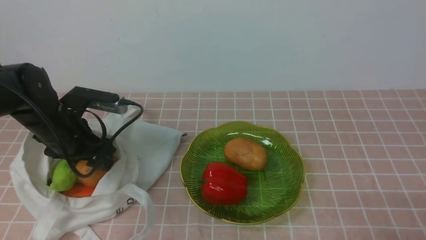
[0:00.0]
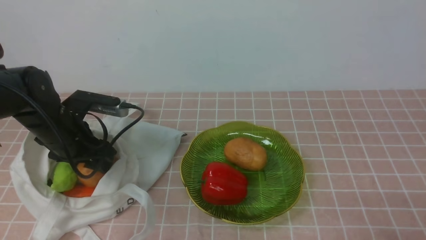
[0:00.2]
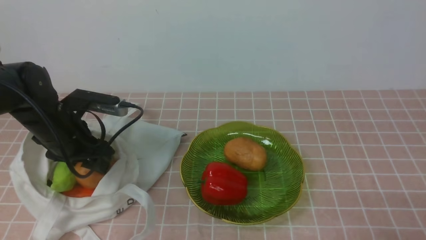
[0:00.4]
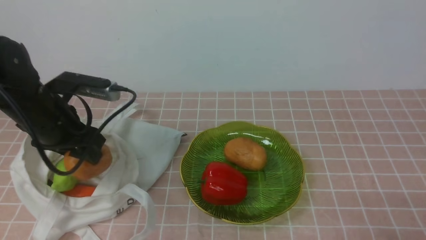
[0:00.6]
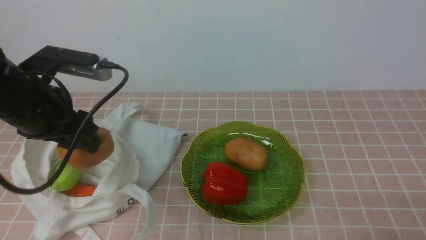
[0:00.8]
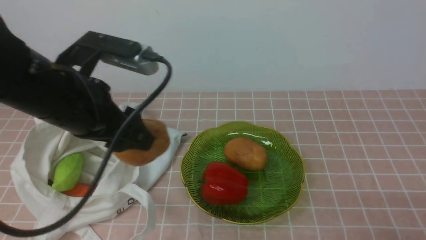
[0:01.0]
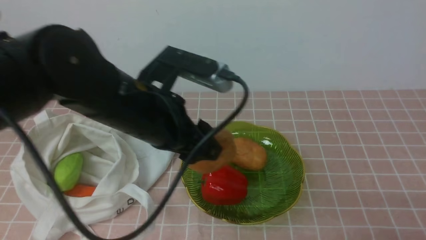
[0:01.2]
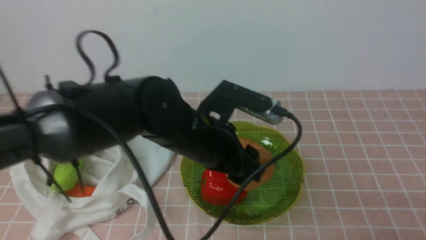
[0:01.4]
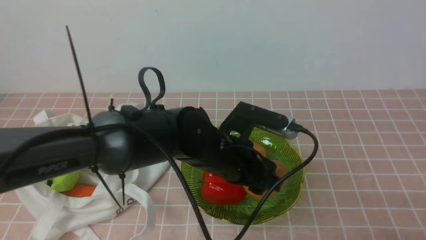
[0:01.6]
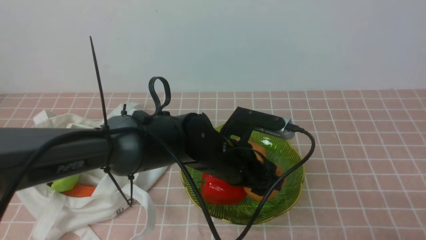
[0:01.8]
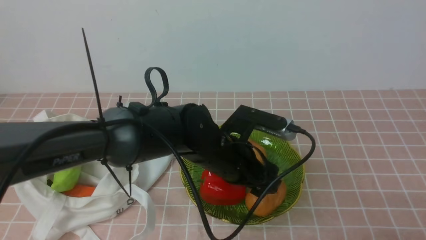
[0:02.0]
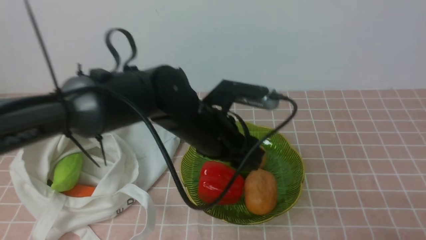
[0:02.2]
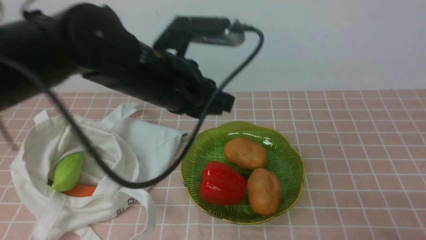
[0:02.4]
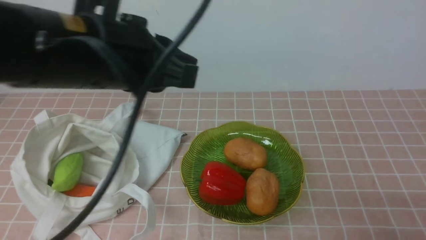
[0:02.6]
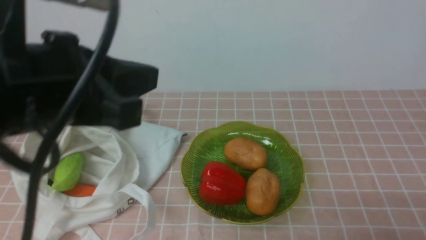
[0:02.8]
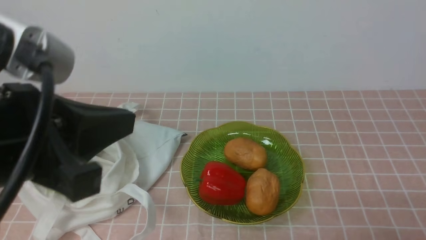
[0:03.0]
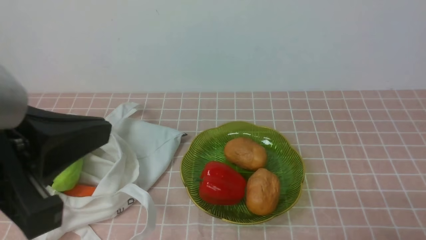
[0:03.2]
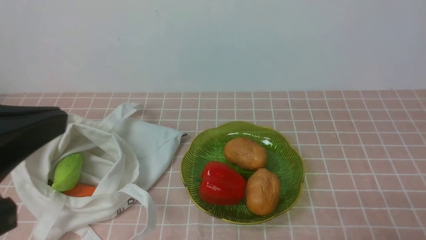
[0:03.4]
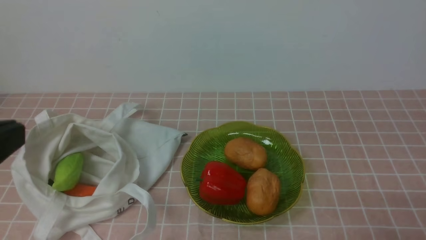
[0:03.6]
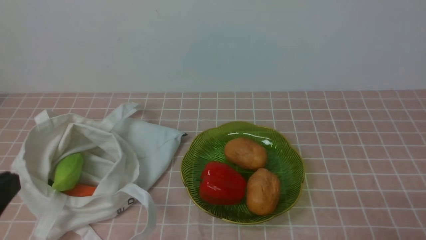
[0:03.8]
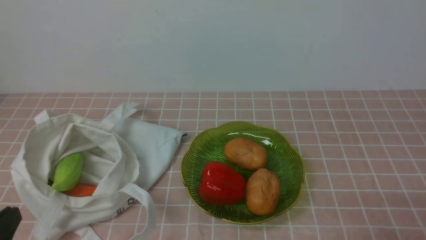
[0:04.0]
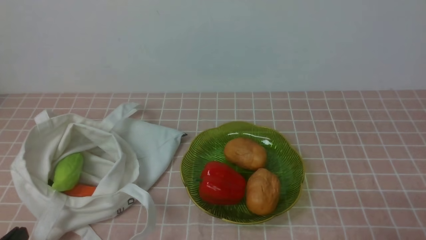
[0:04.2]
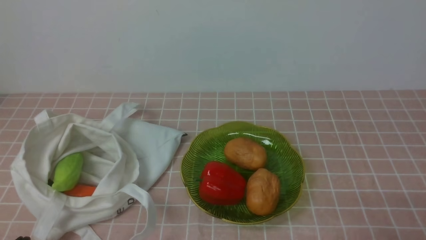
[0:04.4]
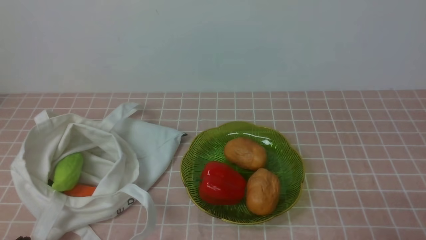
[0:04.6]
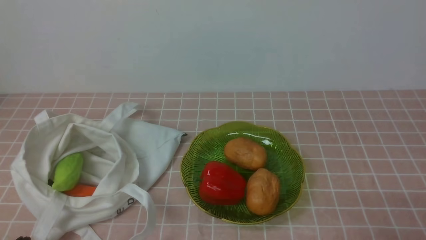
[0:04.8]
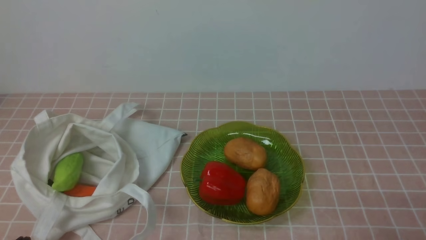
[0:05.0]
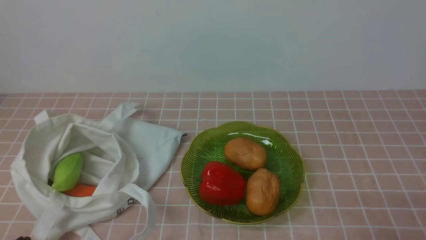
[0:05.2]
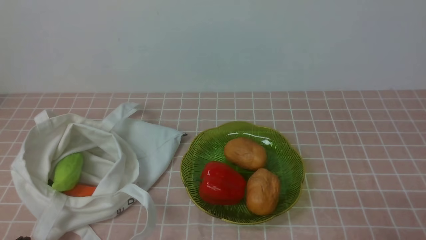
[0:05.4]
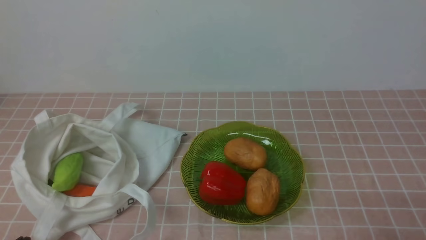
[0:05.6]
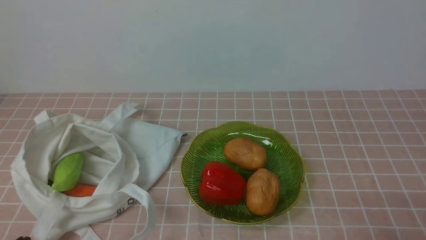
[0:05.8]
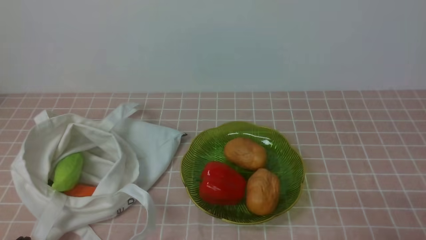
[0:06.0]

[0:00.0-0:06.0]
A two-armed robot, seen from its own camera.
Task of the whole recording: take vegetables from bag on pink coffee tablecloth place on plate.
Step, 0:00.2 to 0:02.4: Place the potato on the plate with left gripper.
0:00.0 to 0:01.6: The left gripper is displaced to the right by approximately 25 cm.
0:01.6 to 0:03.0: The left gripper heads upward, to the left and backward, covering approximately 30 cm, and closes.
0:03.0 to 0:04.4: The left gripper shifts about 20 cm downward.
0:04.4 to 0:06.0: Both grippers stay put.

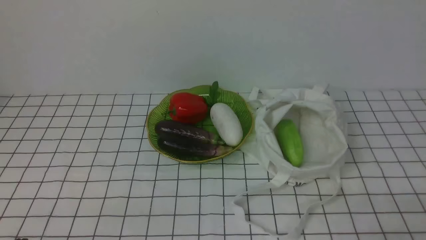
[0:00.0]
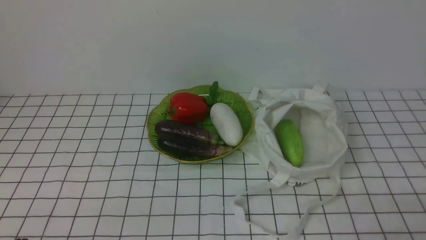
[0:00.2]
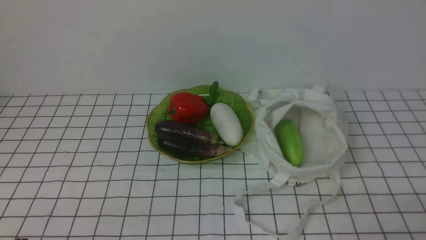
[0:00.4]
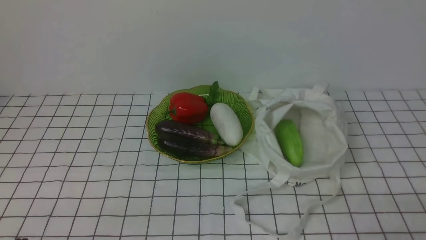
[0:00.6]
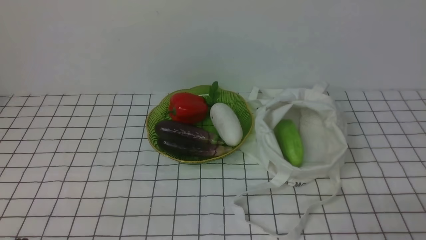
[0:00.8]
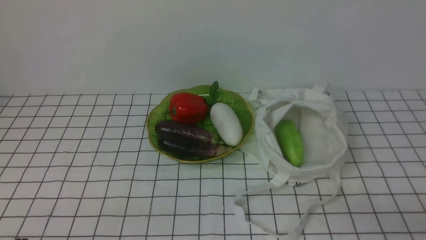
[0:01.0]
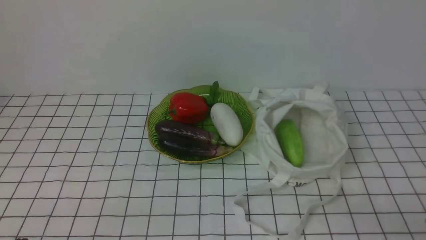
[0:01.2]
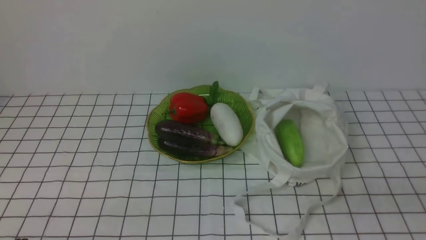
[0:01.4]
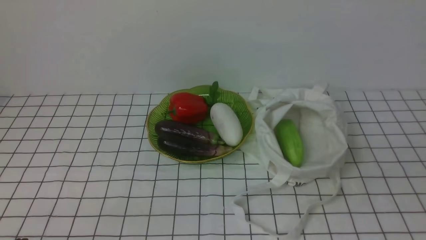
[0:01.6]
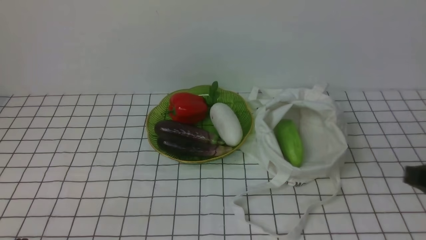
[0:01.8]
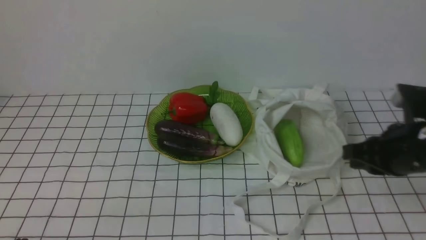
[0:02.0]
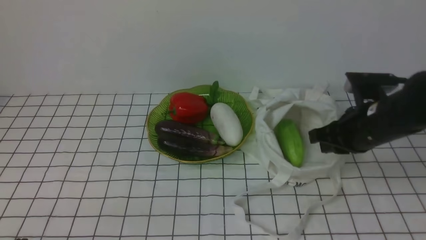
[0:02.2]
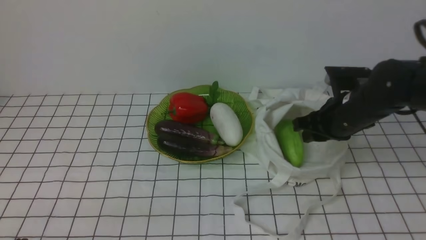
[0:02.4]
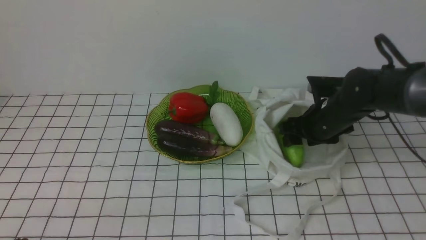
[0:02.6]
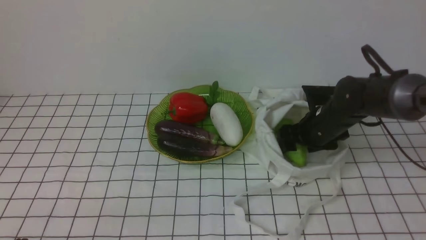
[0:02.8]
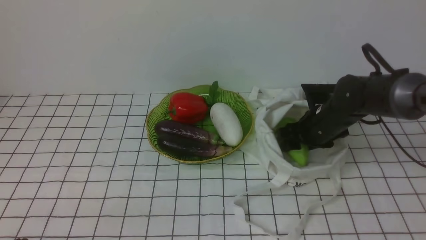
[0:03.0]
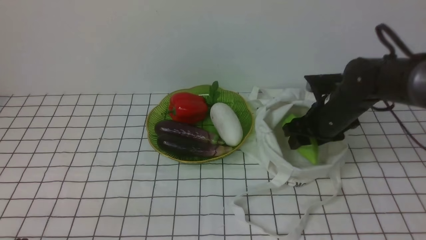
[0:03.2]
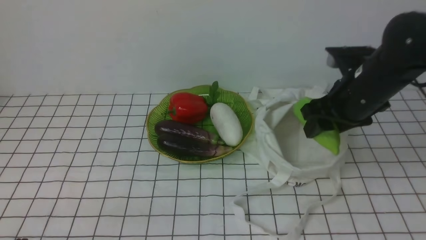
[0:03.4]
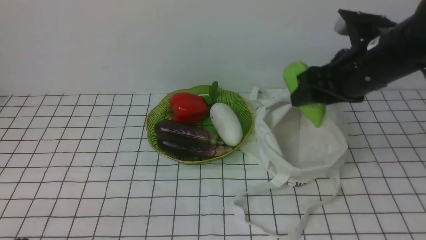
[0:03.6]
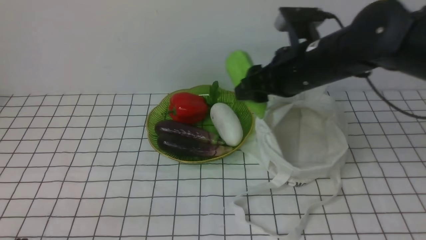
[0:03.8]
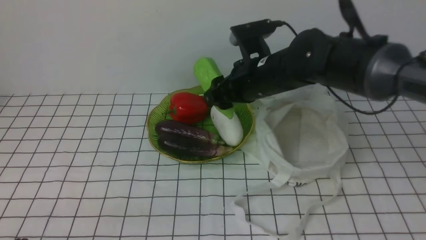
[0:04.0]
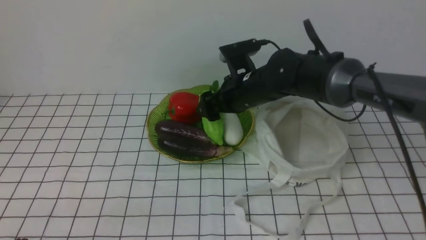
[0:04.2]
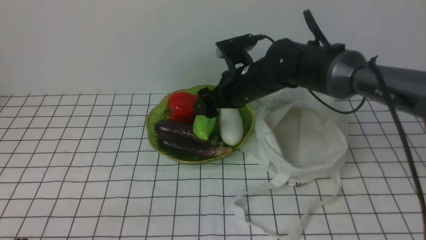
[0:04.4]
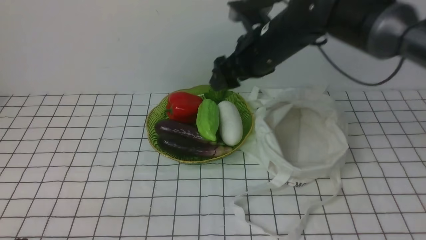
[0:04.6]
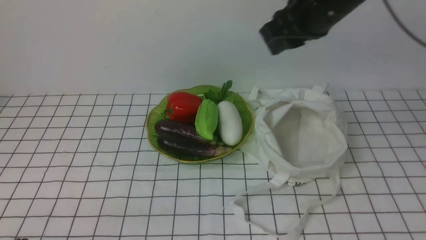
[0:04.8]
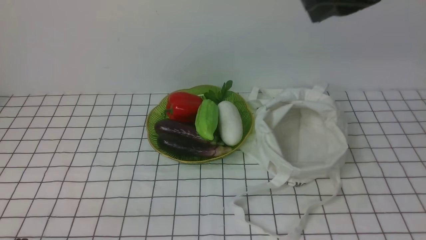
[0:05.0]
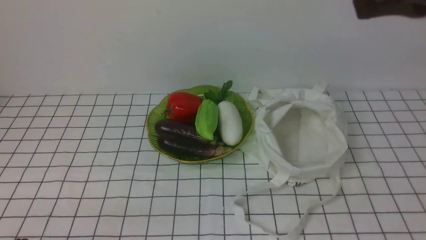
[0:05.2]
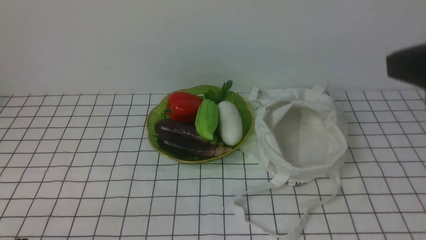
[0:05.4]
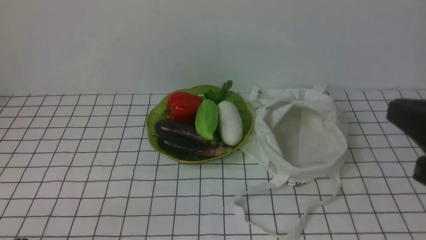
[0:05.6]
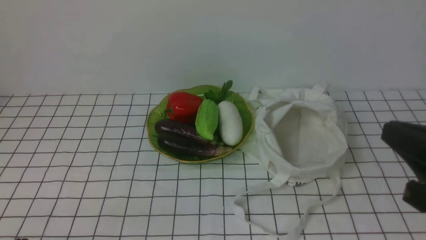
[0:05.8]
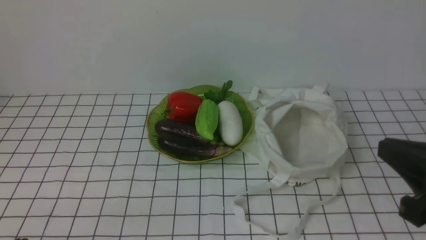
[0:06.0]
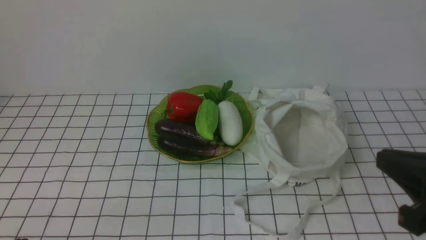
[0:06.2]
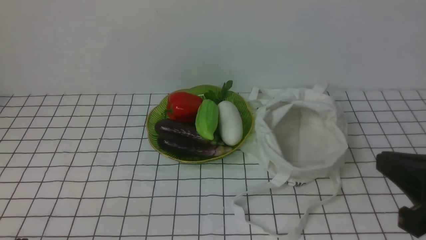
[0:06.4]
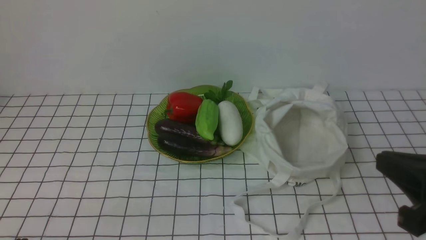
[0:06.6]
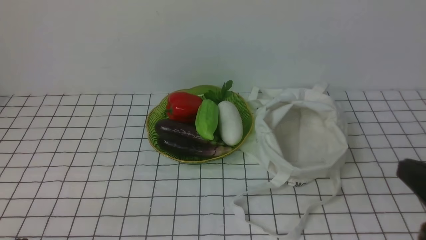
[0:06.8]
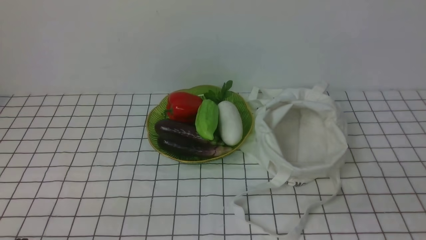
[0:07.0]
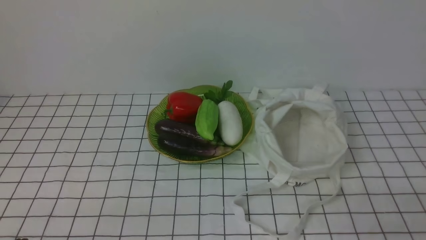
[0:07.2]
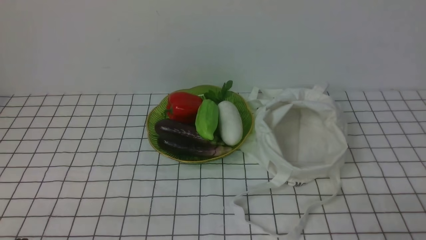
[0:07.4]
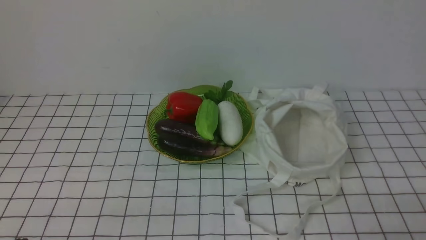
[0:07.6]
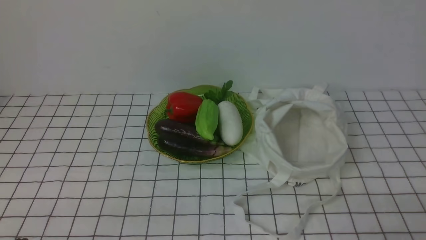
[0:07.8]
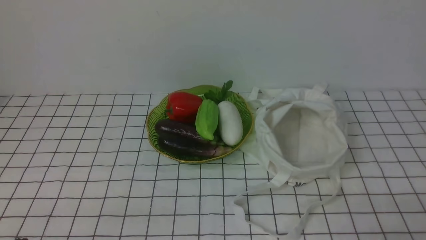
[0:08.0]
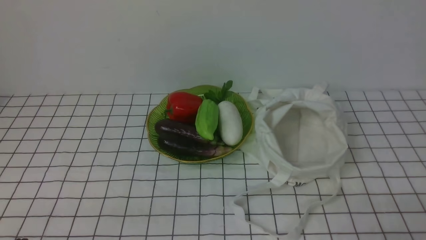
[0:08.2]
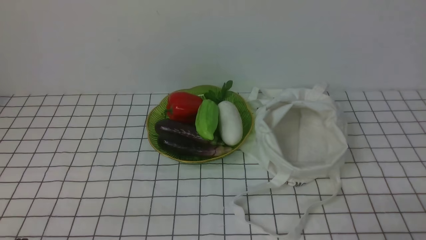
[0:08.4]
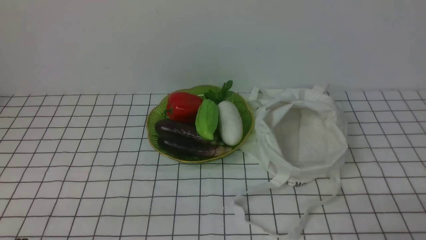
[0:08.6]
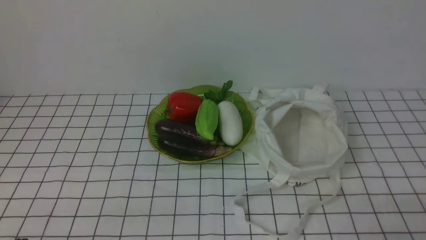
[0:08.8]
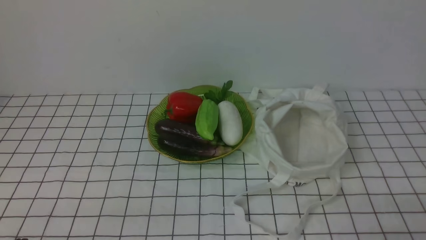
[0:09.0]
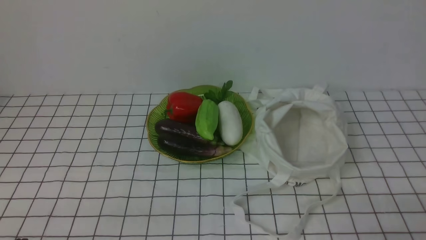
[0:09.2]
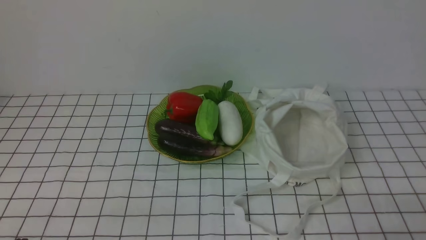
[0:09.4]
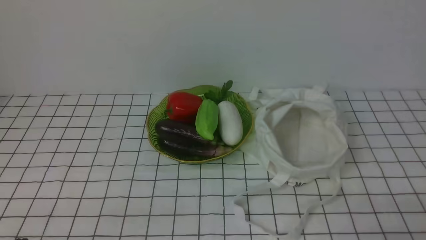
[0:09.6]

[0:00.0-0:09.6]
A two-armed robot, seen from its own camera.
Task of the whole recording: take vegetables from bag on white checkered tablecloth place on plate.
Step, 0:00.0 to 0:03.0: Grasp the bitter melon with right gripper.
Step, 0:03.2 to 0:04.6: Place the bitter melon on the plate with right gripper.
0:01.6 to 0:03.2: The right gripper goes about 30 cm forward, and opens its fingers.
0:03.2 to 0:04.8: The right gripper swings up and down, approximately 20 cm each way, with 2 reversals.
0:04.8 to 0:06.4: The right gripper is displaced backward and to the right by approximately 30 cm, and closes its fingers.
0:06.4 to 0:08.0: The right gripper goes approximately 15 cm downward, backward and to the right.
0:08.0 to 0:09.6: The two grippers keep their place.
